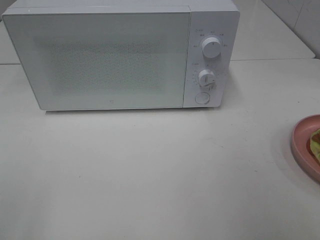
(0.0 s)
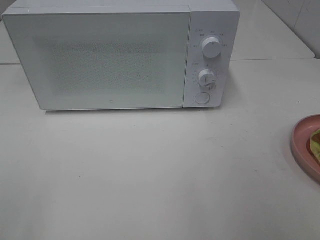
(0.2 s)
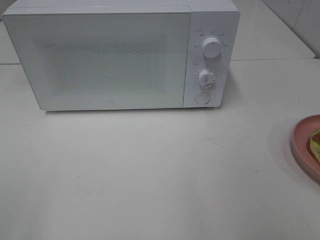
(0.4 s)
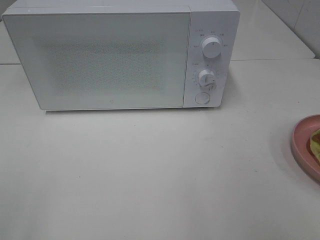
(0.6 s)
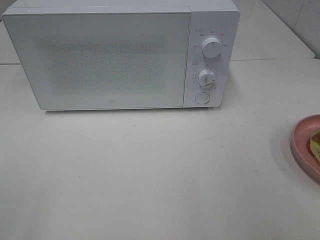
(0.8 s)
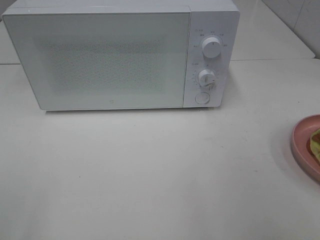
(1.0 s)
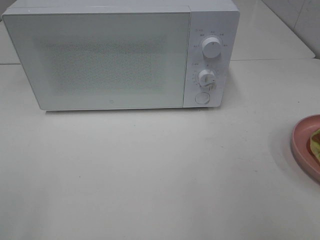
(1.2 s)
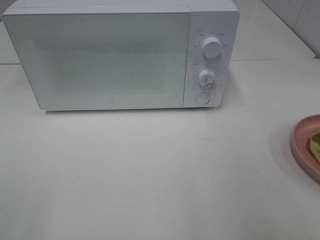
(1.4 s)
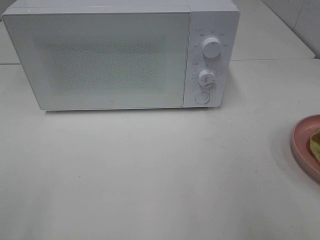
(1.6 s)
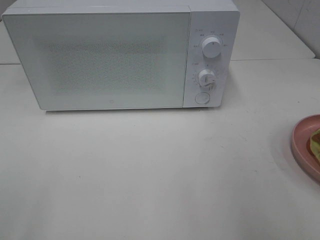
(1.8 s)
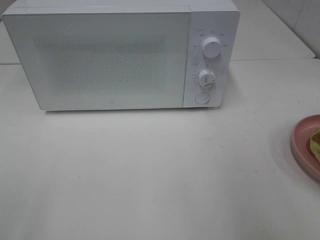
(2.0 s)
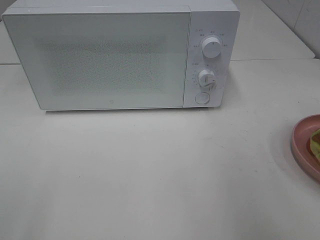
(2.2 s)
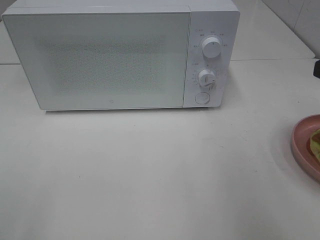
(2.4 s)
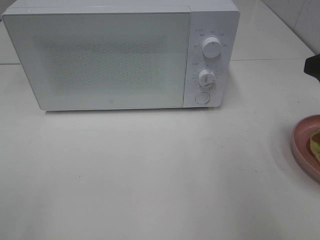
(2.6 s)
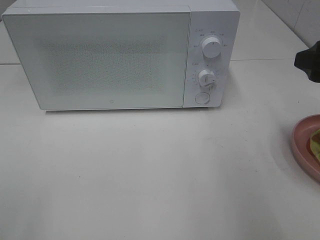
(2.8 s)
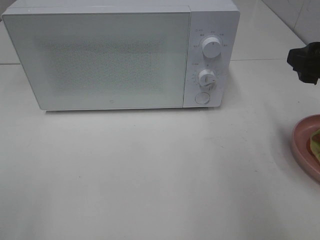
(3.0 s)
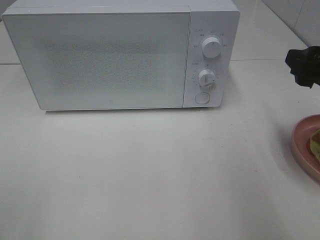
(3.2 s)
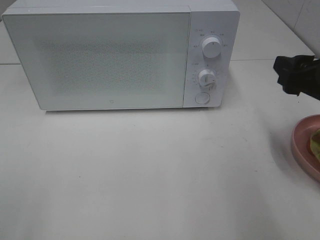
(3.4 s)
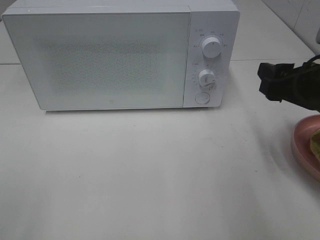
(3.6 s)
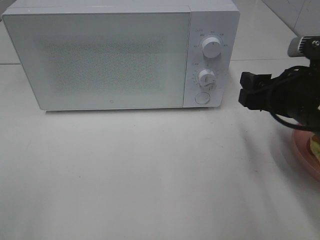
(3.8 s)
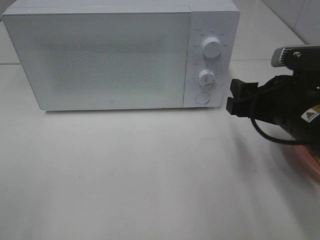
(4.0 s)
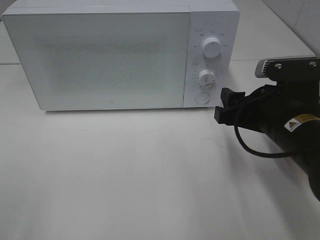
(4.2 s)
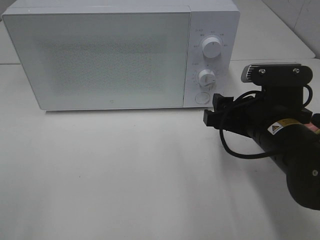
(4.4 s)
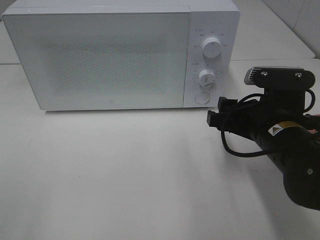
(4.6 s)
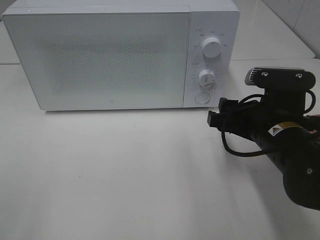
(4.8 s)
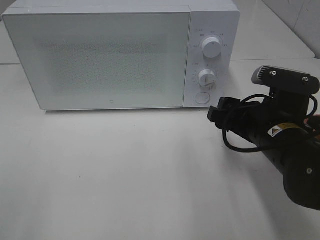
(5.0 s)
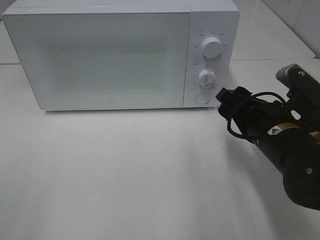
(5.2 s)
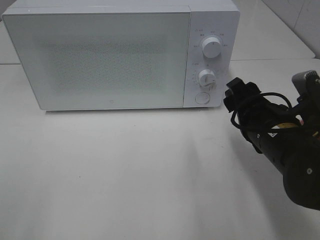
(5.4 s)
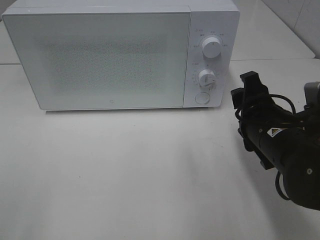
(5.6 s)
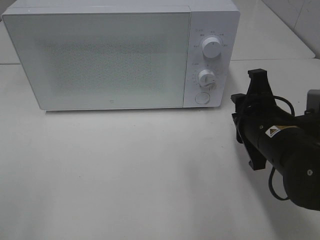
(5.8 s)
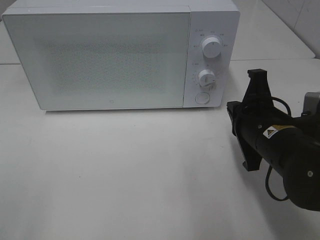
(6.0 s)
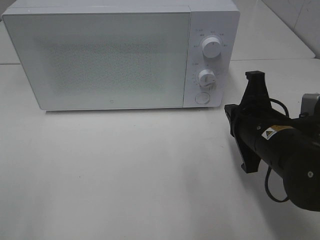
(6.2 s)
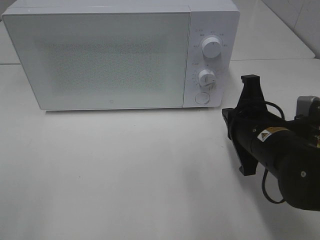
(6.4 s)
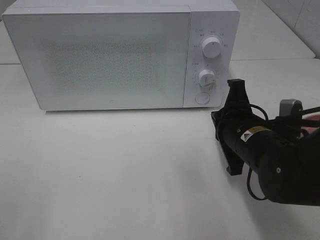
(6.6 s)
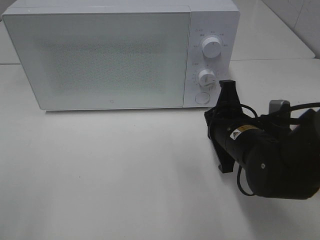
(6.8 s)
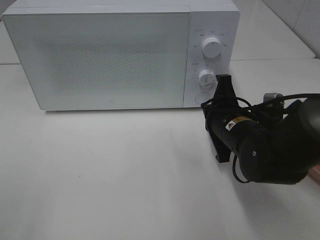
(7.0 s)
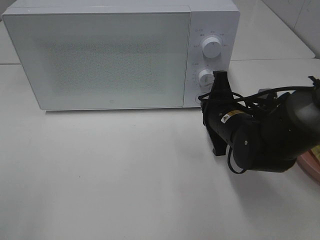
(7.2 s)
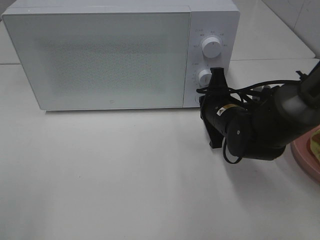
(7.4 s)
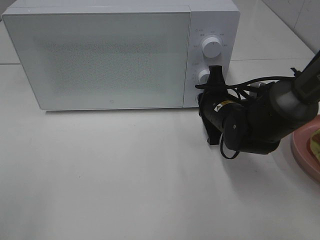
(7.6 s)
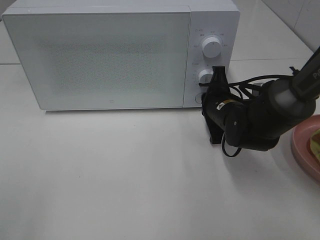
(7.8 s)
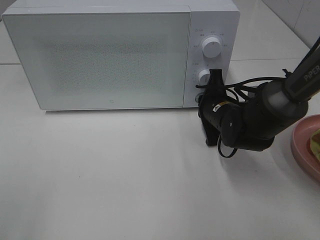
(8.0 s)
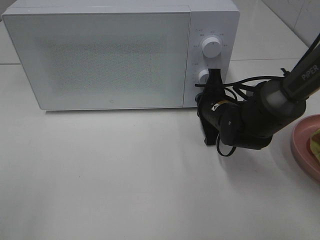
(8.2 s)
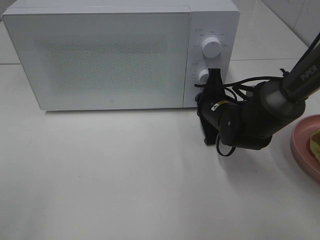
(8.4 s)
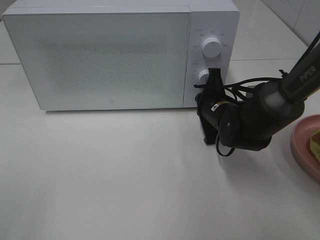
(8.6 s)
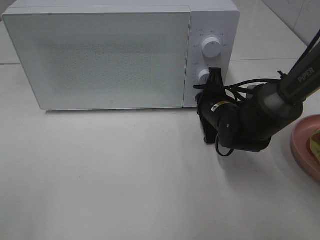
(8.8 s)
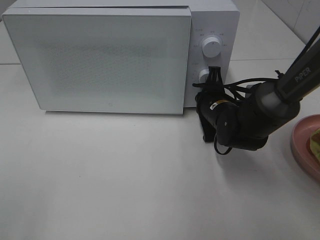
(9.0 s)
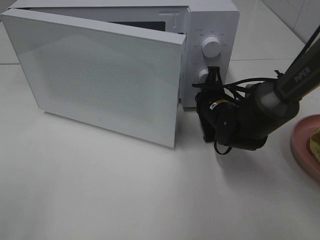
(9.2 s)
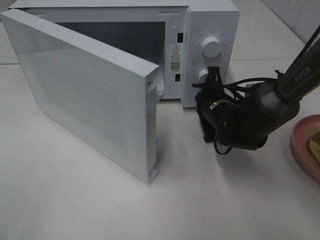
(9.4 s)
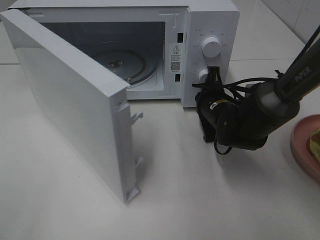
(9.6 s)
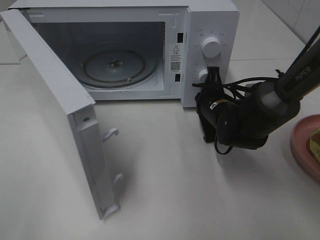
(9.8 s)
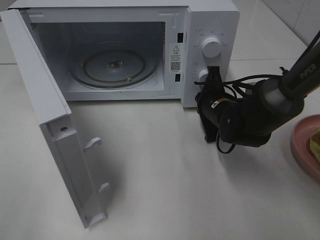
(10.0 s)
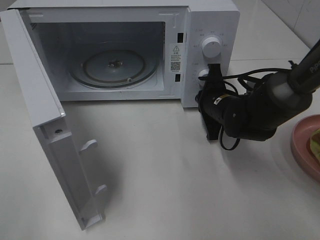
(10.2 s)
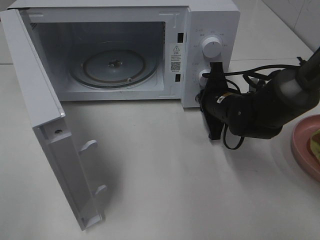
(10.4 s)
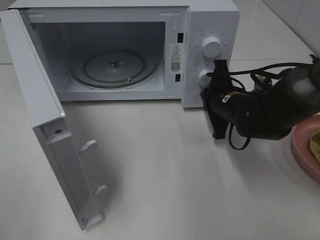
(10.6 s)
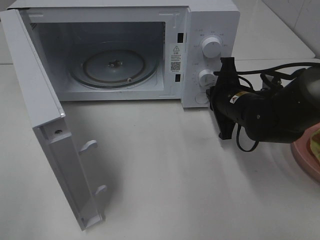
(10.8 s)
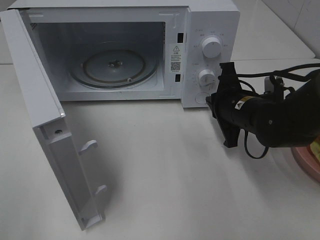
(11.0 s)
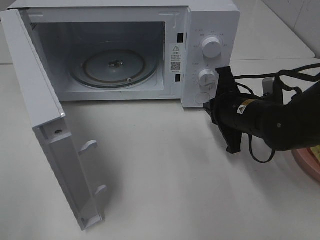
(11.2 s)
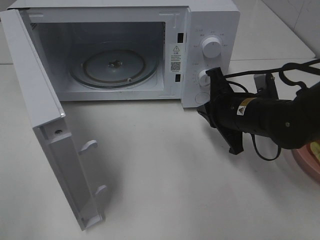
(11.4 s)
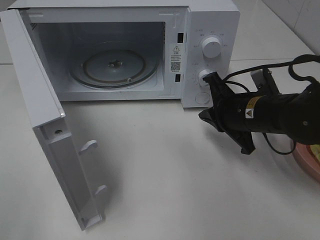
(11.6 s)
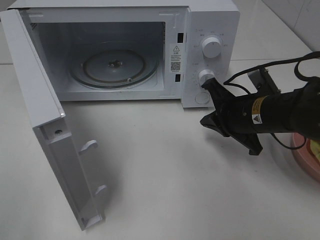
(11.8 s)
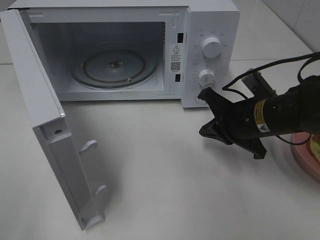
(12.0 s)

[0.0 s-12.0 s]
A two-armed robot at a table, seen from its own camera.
Task of the whole recording: Heat Sandwich.
Step, 0.0 to 10.8 s: Right hand: press the switch.
1.6 to 3.0 s: The right gripper heads forward, covering approximately 15 cm.
3.0 to 4.4 s: The right gripper shifts approximately 15 cm to the left and downward.
4.4 to 6.0 s: The right gripper closes up.
6.0 to 7.6 s: The right gripper moves forward and downward, about 10 cm.
7.6 to 9.0 s: The grippers stay close to where they were, moving slightly.
10.4 to 12.0 s: The right gripper is displaced backward by some 10 cm.

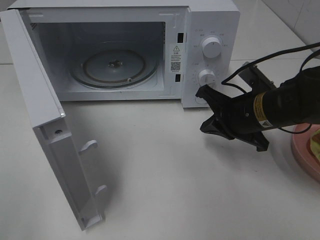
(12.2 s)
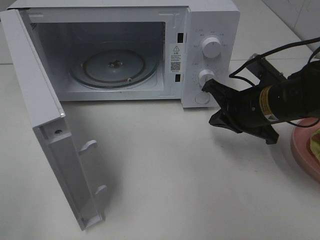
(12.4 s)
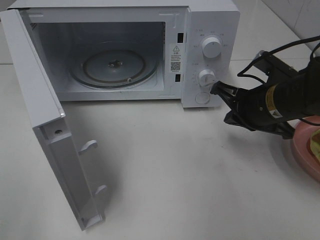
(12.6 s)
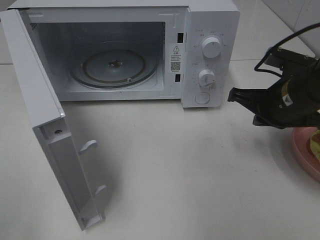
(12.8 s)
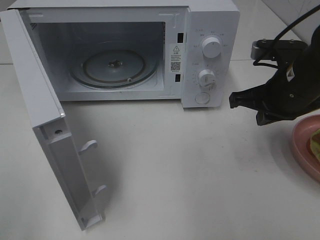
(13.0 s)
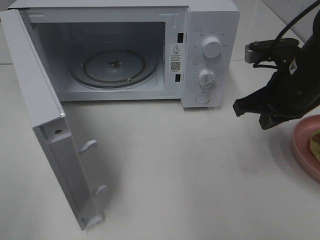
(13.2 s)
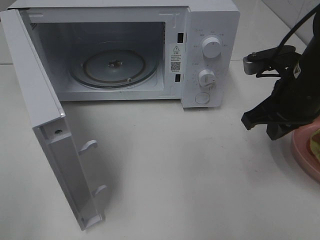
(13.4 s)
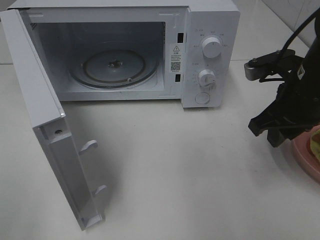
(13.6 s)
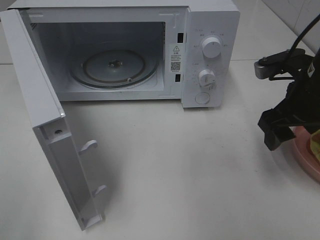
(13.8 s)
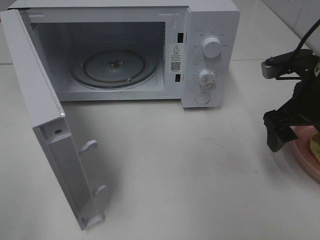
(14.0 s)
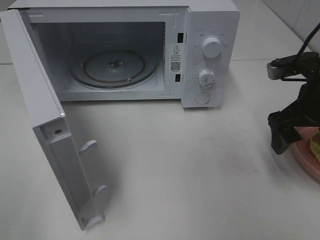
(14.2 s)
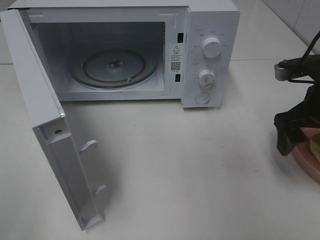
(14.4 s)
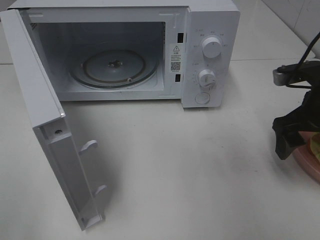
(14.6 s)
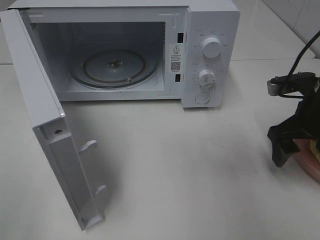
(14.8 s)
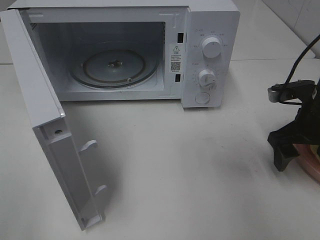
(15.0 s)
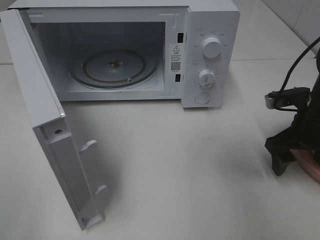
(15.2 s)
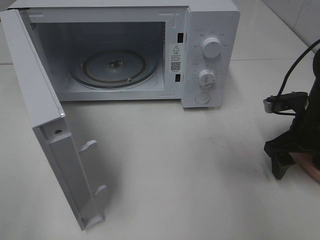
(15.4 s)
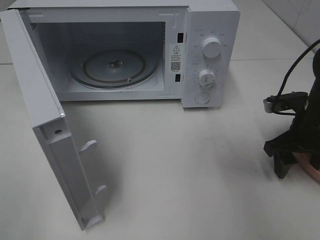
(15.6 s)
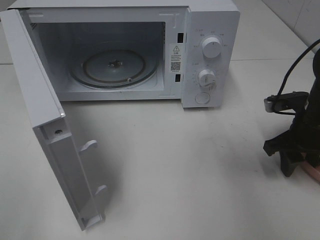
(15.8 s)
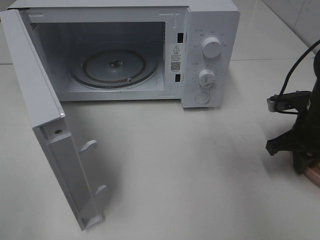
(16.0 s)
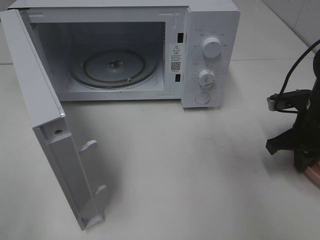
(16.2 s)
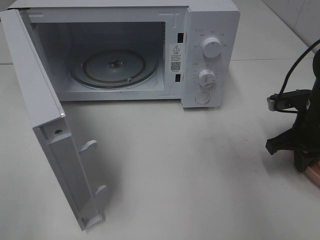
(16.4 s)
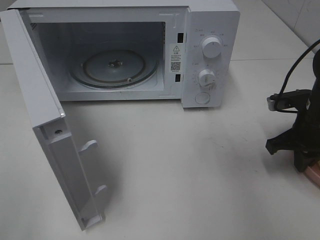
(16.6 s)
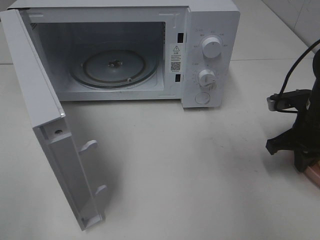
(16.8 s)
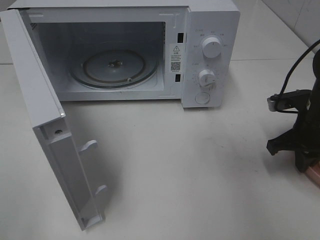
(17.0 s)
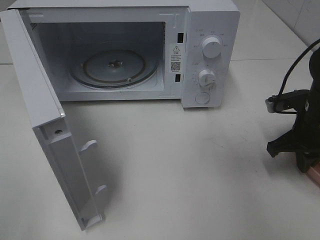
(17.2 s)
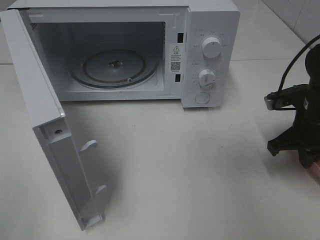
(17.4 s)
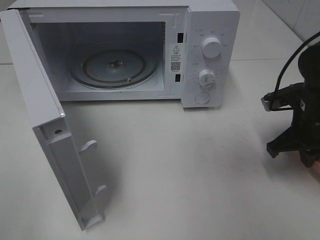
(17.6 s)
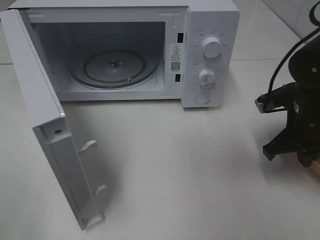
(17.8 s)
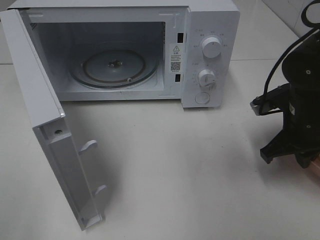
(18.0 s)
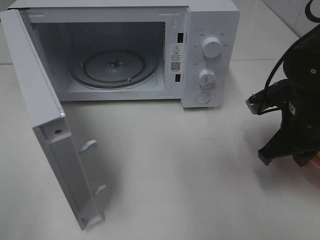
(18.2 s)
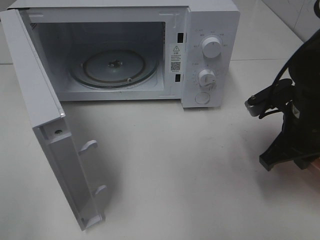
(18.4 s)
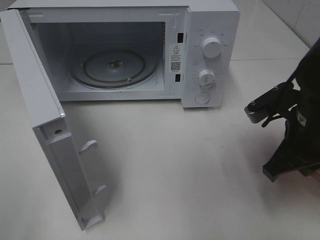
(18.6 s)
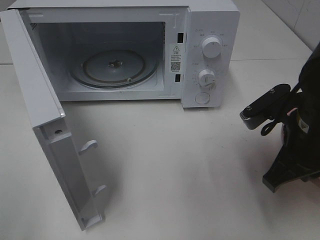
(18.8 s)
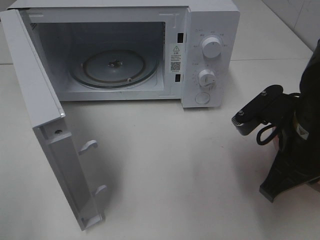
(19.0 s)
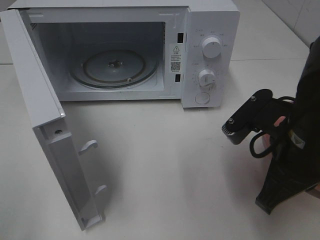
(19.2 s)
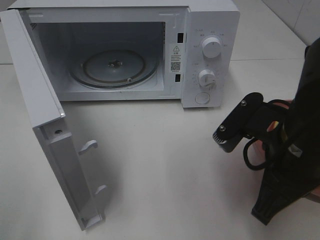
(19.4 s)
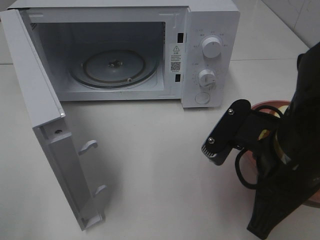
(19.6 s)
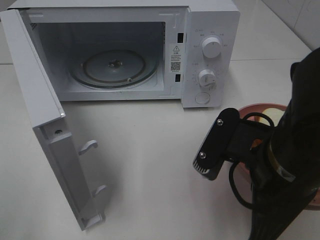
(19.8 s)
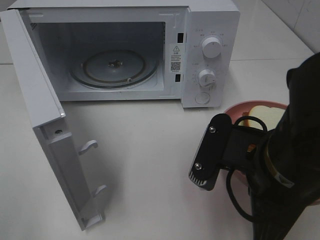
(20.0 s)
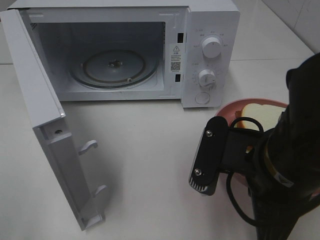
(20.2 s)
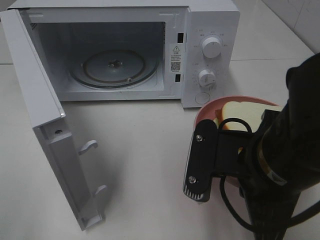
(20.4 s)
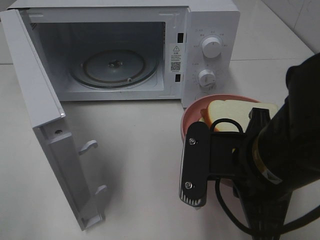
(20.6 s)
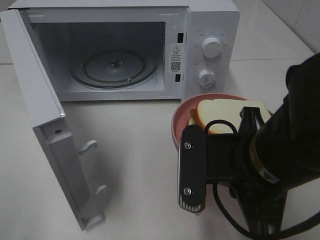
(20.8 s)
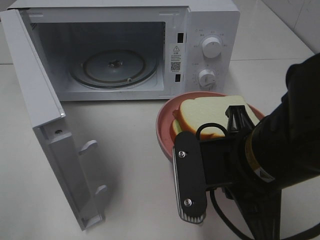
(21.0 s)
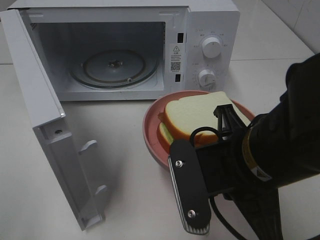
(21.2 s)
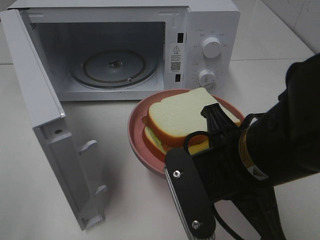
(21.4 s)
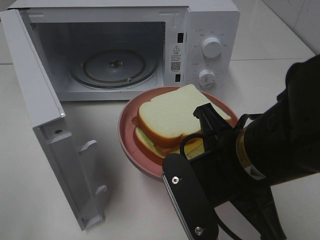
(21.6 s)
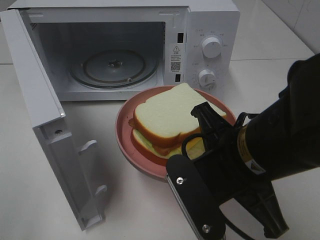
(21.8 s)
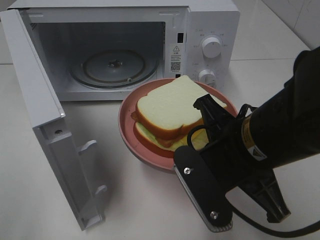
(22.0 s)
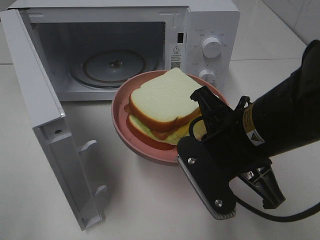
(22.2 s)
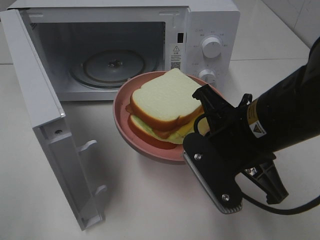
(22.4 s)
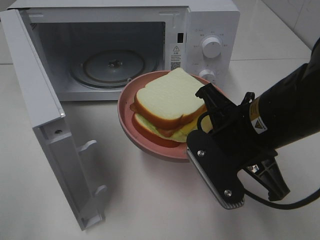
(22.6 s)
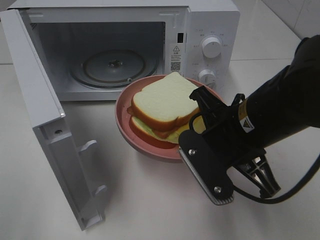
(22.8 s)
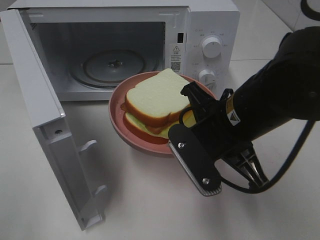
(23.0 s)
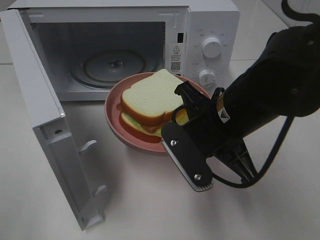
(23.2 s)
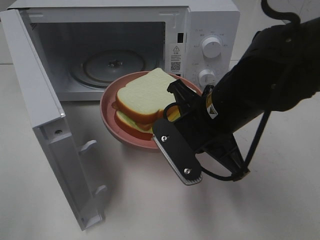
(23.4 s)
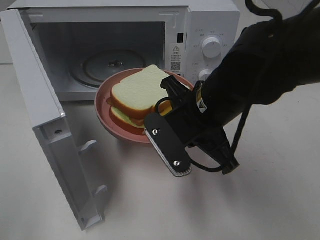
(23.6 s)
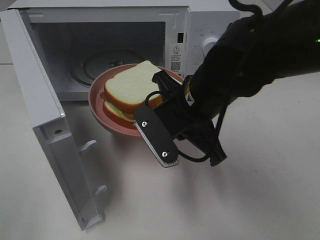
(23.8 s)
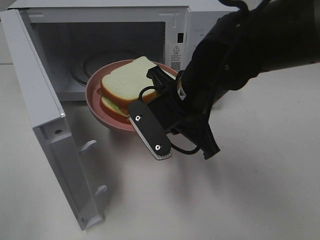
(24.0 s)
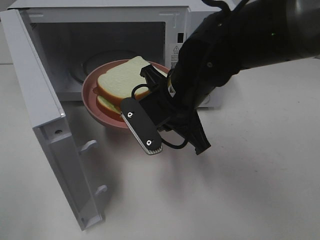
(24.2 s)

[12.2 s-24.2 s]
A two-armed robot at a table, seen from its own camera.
Task of the whole recording: Heat Sandwich.
Step, 12.2 to 18.6 s: Right hand: grab the plate with the sandwich.
12.2 to 13.8 s: The right gripper goes some 10 cm upward and to the right, and opens.
13.8 to 15.2 s: The right gripper goes approximately 5 cm downward.
15.2 to 16.6 s: The right gripper closes its fingers.
16.6 to 18.2 s: The right gripper goes about 5 cm to the left.
18.2 to 19.8 s: The right gripper heads backward and to the left, covering about 15 cm.
21.2 to 22.6 s: The right gripper ends up some 5 cm from where it was.
22.6 to 24.2 s: The right gripper heads forward and to the left, covering approximately 10 cm.
